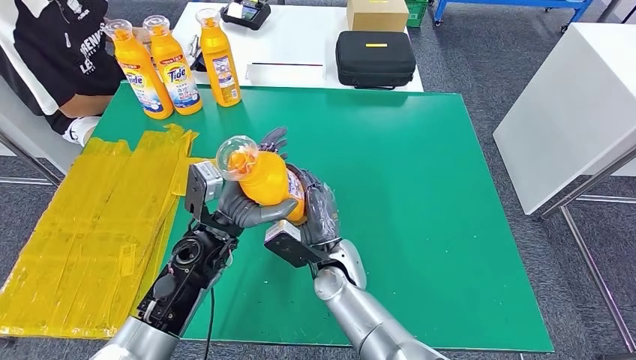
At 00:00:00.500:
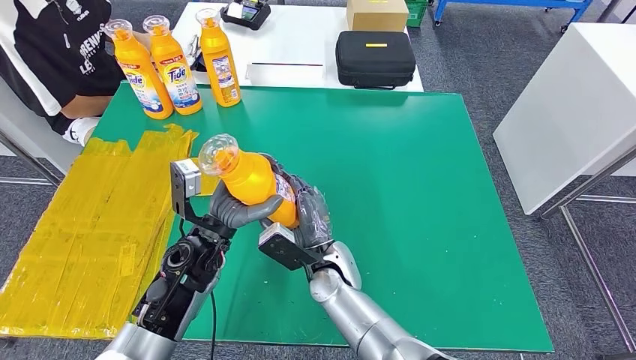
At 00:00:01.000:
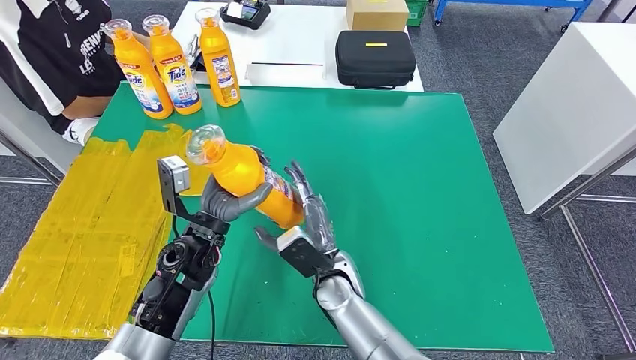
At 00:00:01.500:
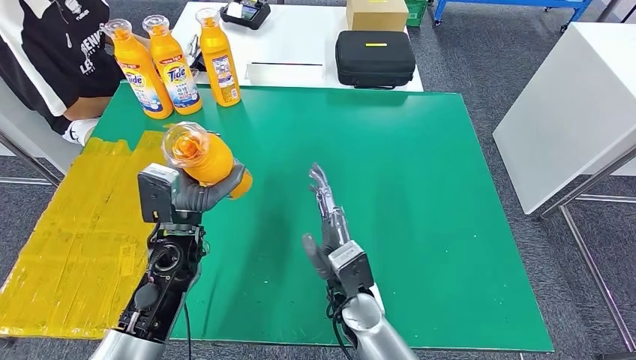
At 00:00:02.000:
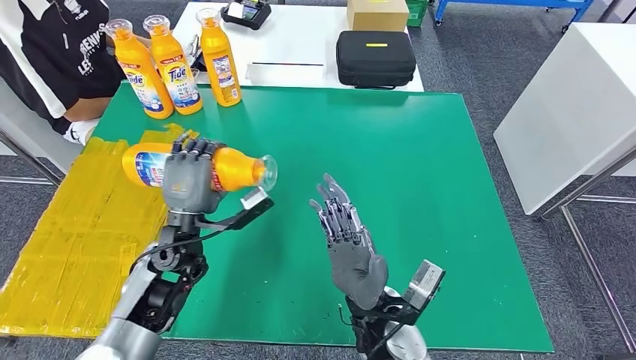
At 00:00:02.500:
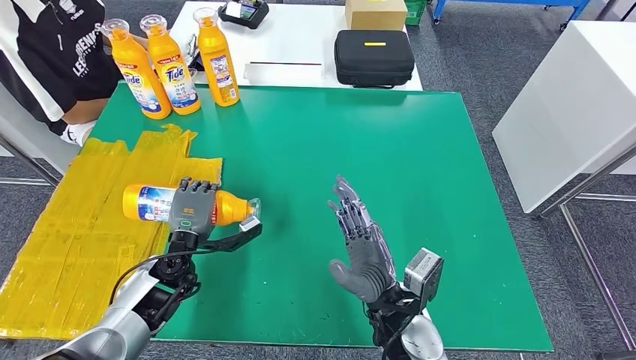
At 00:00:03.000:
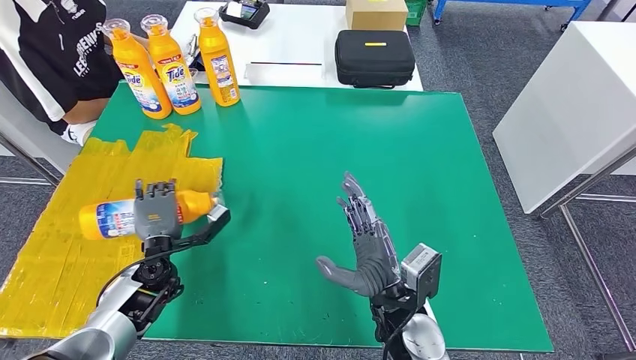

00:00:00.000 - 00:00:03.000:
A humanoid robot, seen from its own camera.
Step, 00:00:00.000 - 00:00:03.000: Flip the fast-moving consumer goods bottle to the front side.
00:00:00.000 - 00:00:01.500: The right hand moves about 5 cm.
00:00:01.500 - 00:00:03.000: The right hand goes roughly 5 cm to the right, while the left hand moves downward and to the left, some 15 cm.
